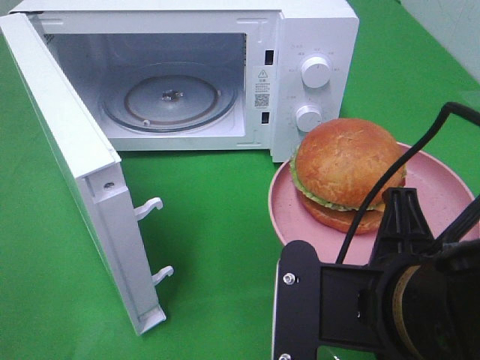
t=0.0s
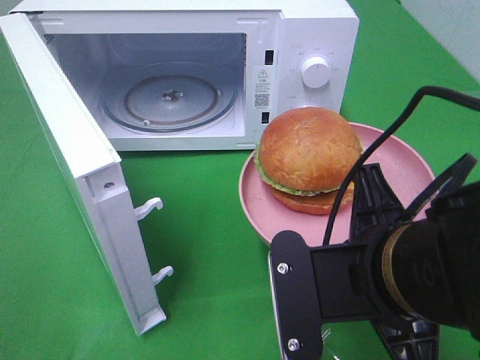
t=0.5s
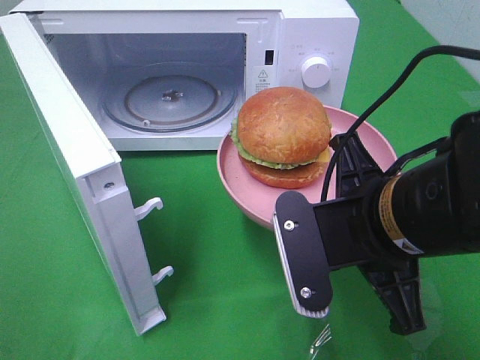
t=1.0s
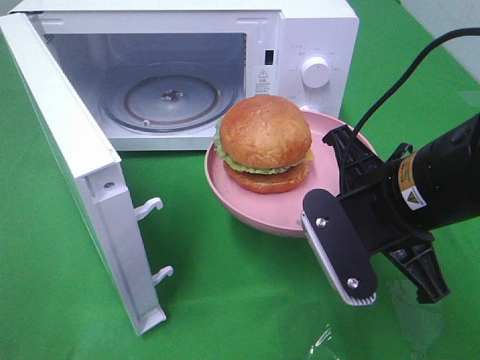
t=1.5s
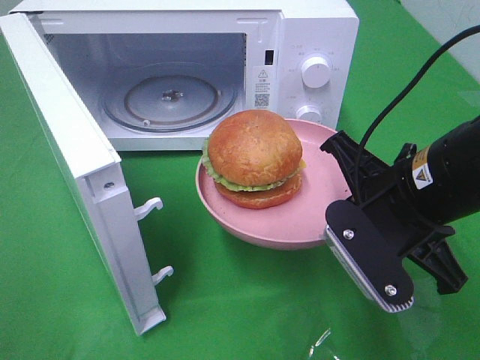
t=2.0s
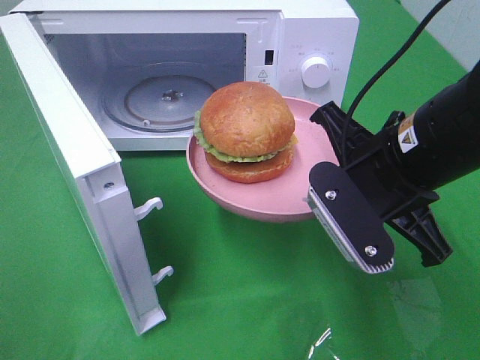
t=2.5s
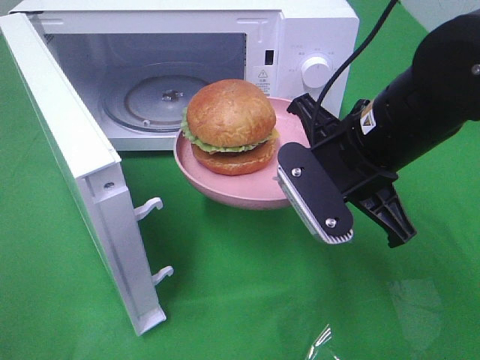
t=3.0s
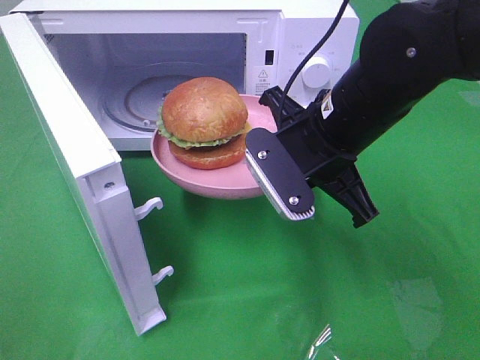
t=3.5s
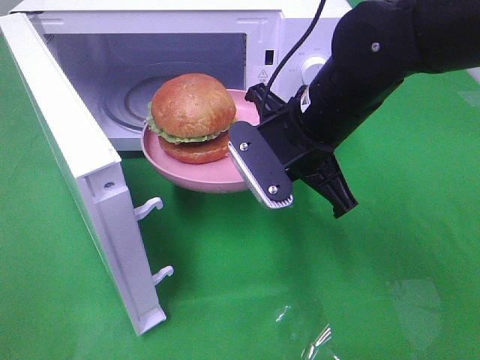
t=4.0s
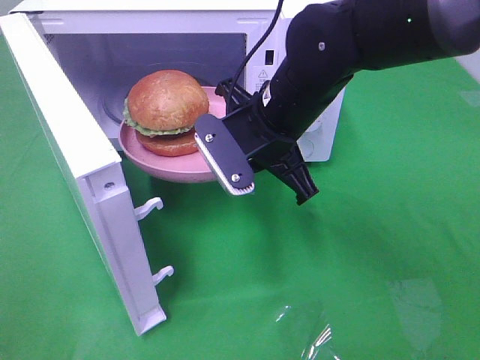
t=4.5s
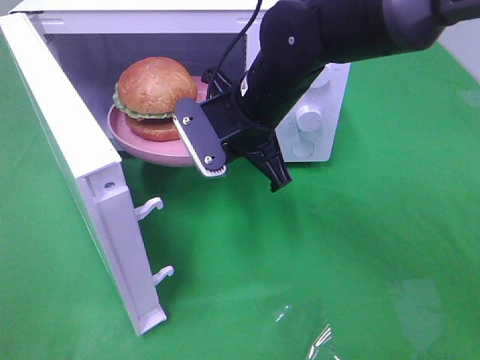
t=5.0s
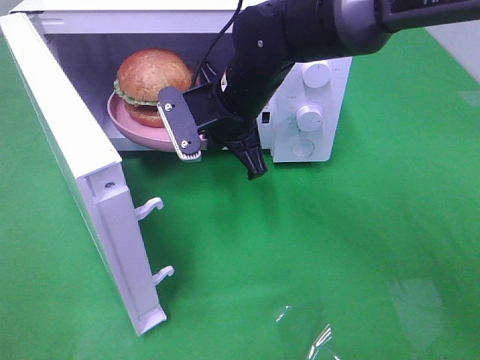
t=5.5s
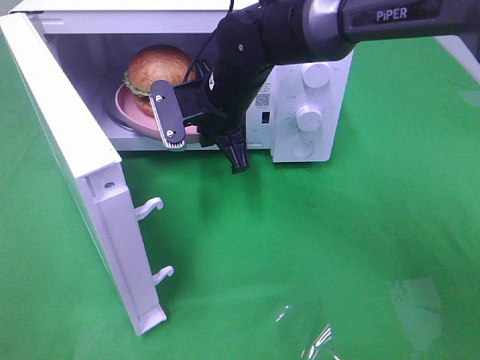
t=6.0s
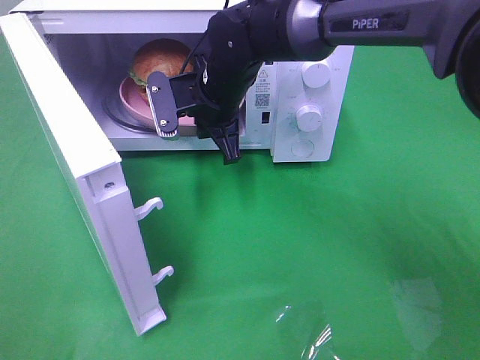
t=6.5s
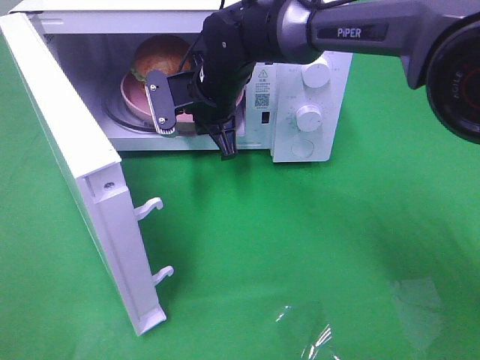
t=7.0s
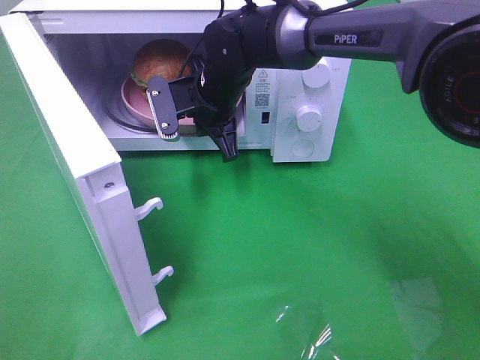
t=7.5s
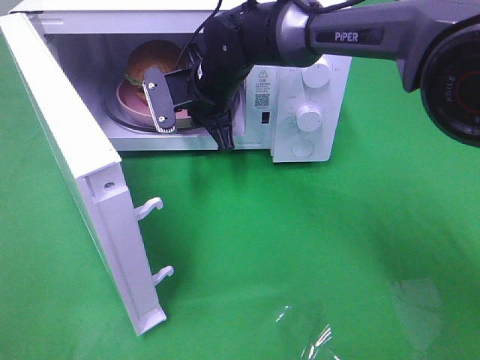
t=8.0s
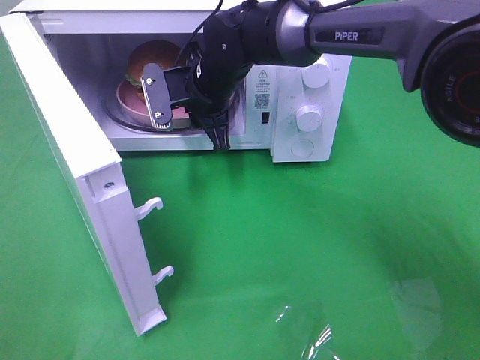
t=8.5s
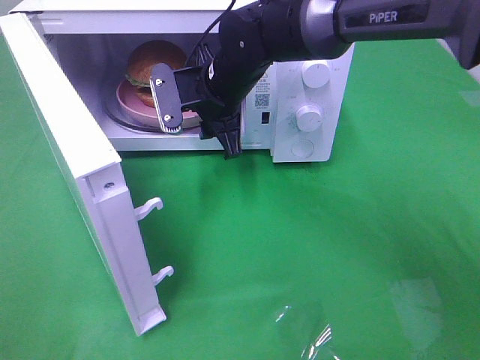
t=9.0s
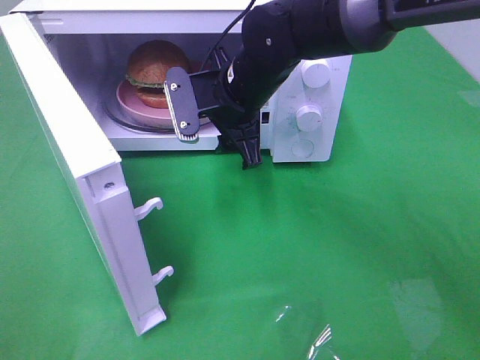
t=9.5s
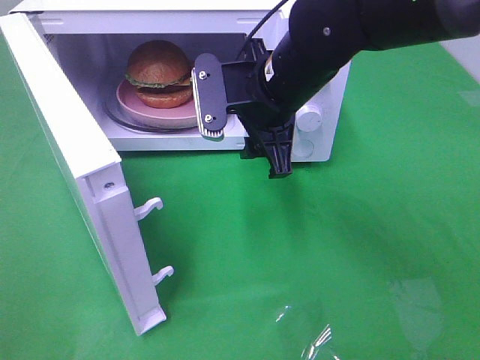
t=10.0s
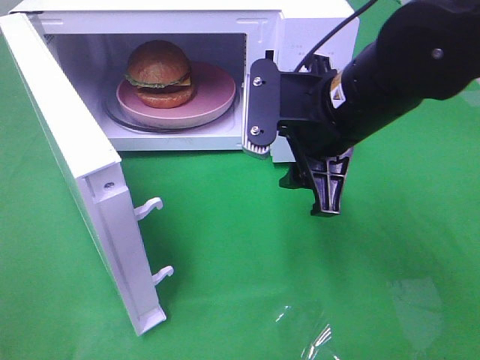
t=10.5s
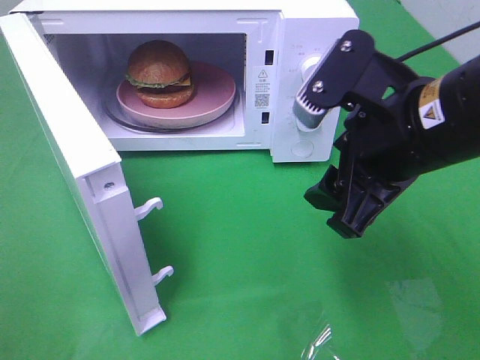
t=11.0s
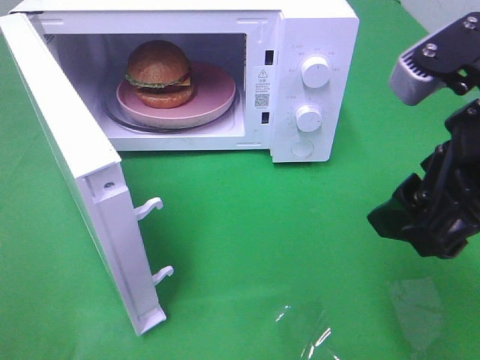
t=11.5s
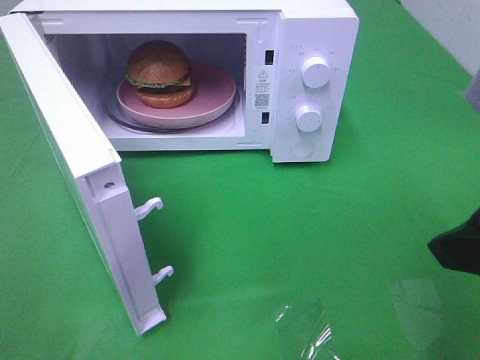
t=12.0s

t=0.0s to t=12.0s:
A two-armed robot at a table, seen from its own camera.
Task of the whole recording: Heat the burger.
Step, t=0.0s to t=9.0s: Right hand: place the plate in the microwave.
t=0.0s to t=2.0s: The right gripper is displaced forward by some 10 cm.
t=2.0s to t=4.0s: The right gripper moves forward and to the left, roughly 10 cm.
t=4.0s to t=6.0s: The right gripper shifts some 15 cm forward and to the left.
t=6.0s to t=8.0s: The grippers stay close to where they were, moving slightly.
t=8.0s to t=10.0s: The right gripper heads backward, to the right and upward, covering approximately 15 cm, and opens.
t=10.0s to t=12.0s: The right gripper heads backward and to the right, covering roughly 25 cm.

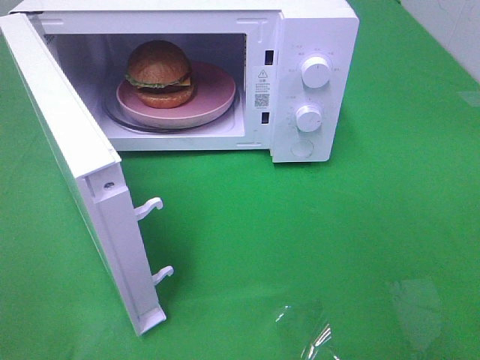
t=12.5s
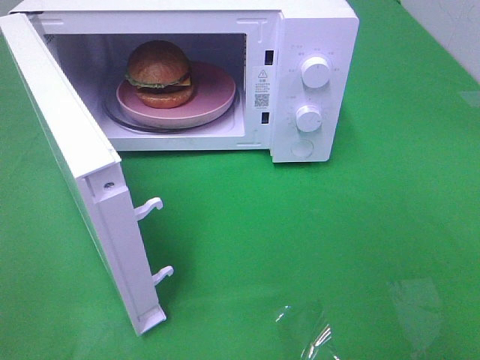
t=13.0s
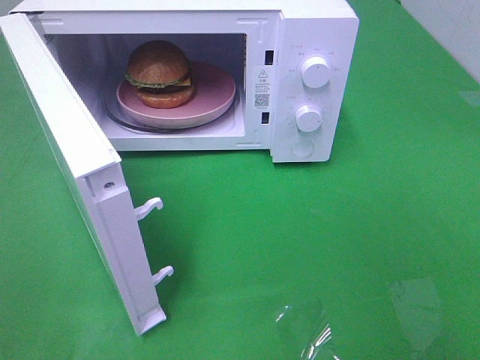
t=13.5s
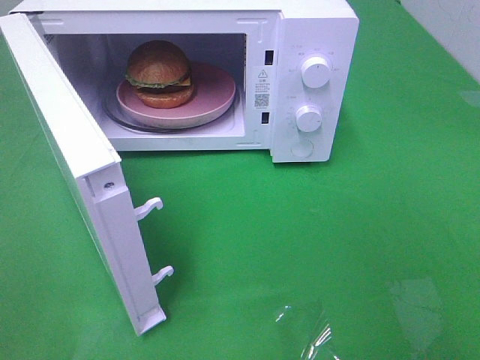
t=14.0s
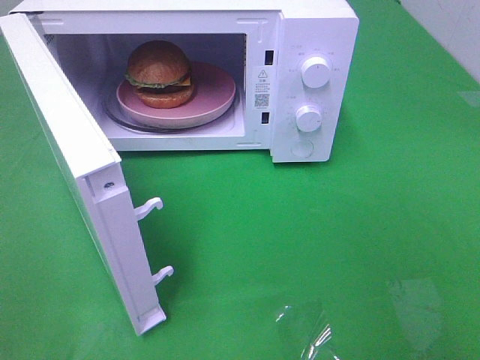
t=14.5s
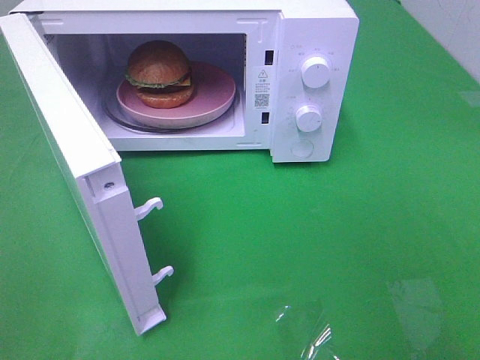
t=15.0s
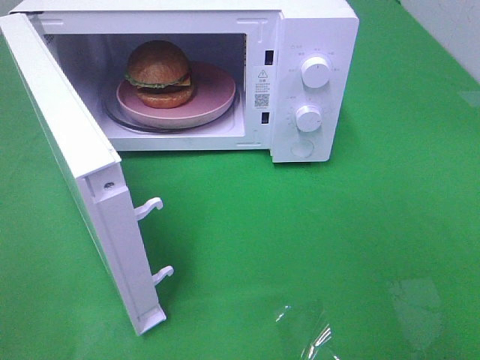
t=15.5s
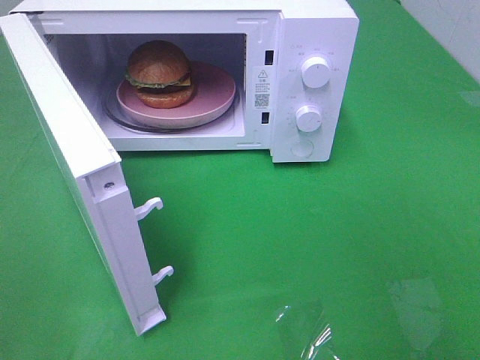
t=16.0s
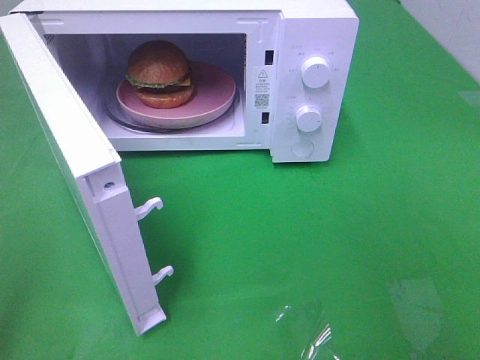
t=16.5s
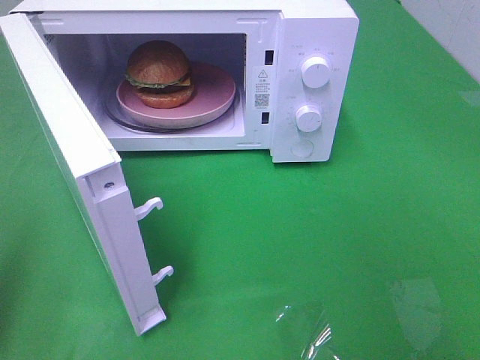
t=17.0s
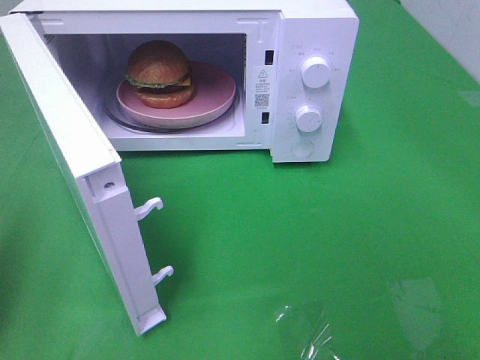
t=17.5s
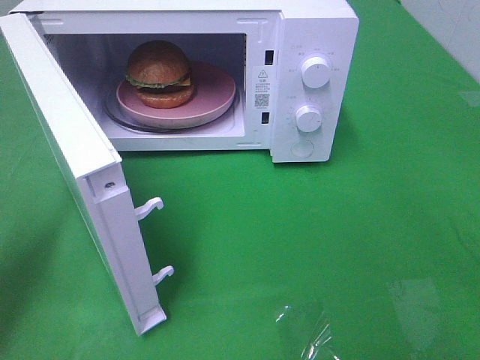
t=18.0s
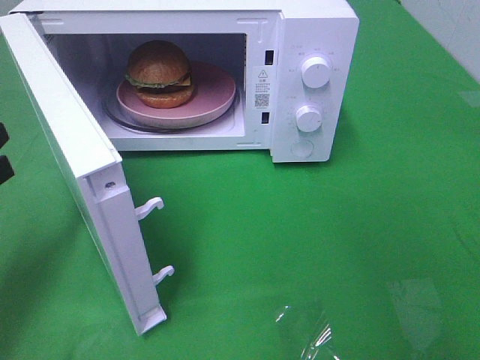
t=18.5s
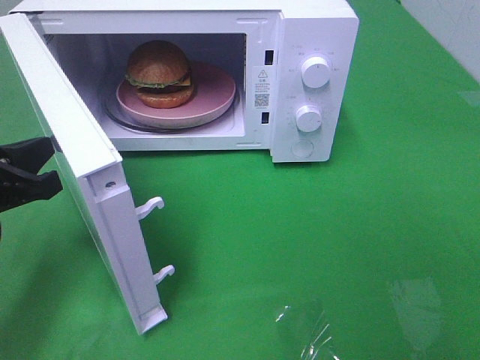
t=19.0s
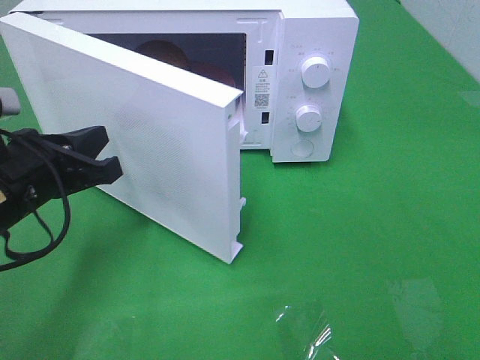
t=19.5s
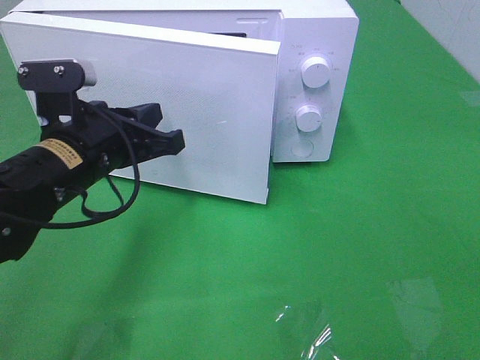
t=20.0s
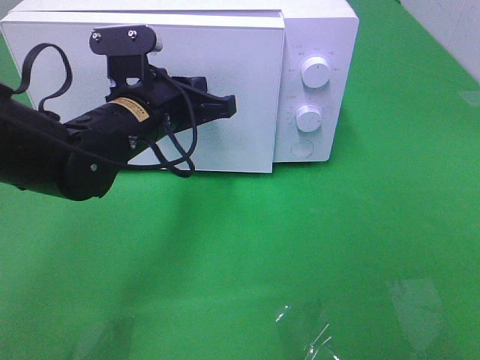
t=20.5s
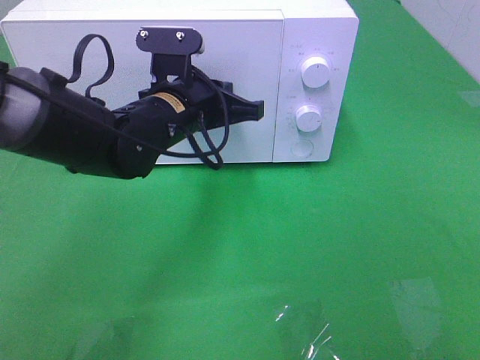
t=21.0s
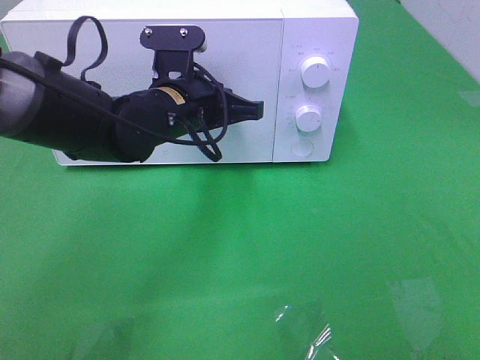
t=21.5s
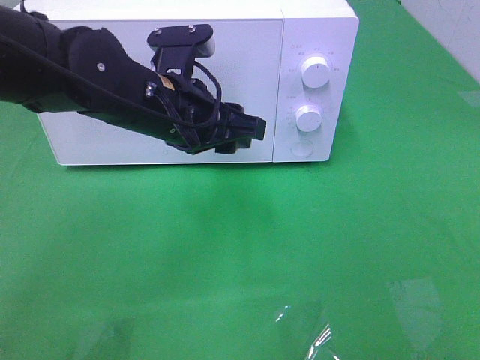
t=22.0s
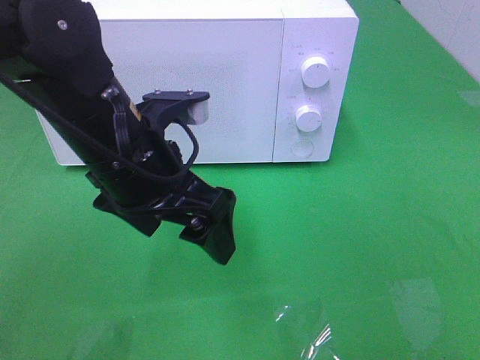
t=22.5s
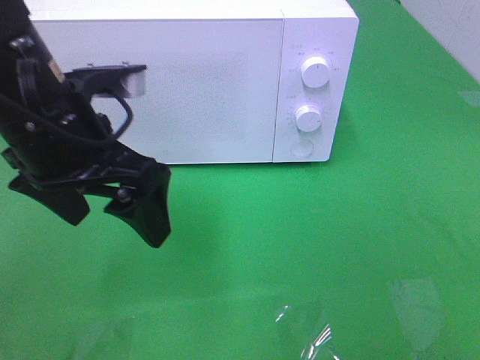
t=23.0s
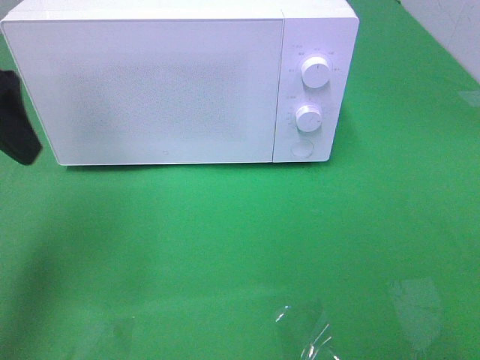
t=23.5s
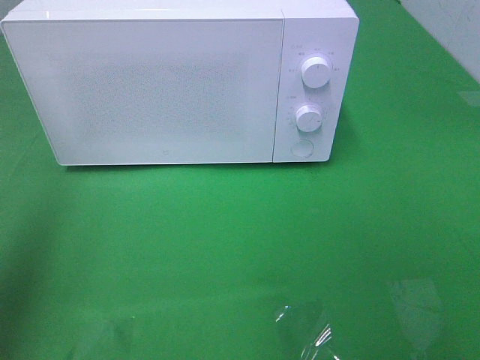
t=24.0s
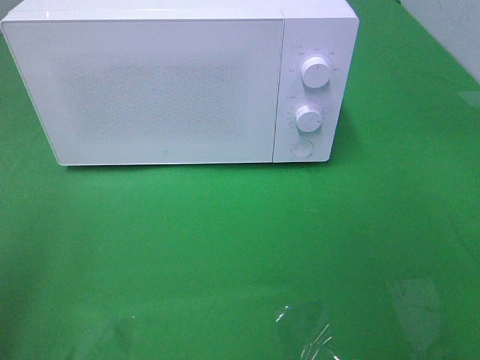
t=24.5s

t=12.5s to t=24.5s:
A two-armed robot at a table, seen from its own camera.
Task of the whole recording: Heat the burger.
Step, t=12.5s to t=22.0s: Left hand: close the microwave door.
t=16.5s to t=18.5s: The left gripper heads forward and downward, covering roughly 20 cm.
t=18.5s to t=20.5s: The left gripper goes approximately 20 cm to the right and forward.
t=20.5s to t=22.5s: The left gripper travels backward by about 5 cm, and opens up.
t=22.5s to t=24.5s: The left gripper moves to the left, backward and upward, roughly 30 cm.

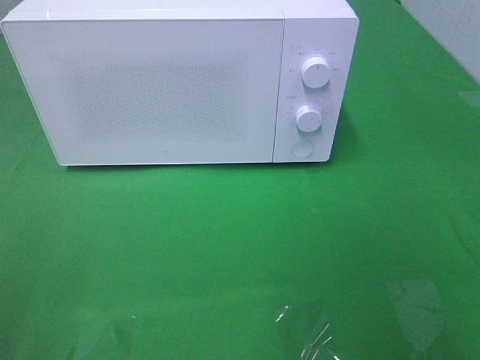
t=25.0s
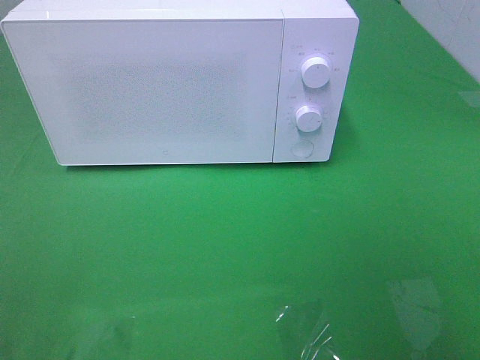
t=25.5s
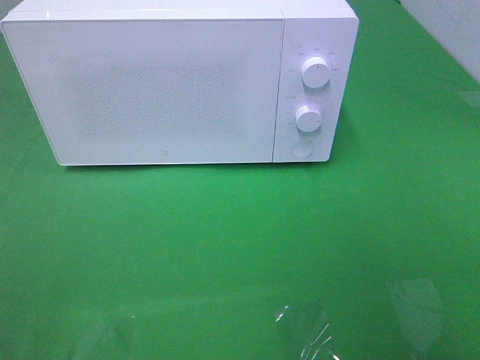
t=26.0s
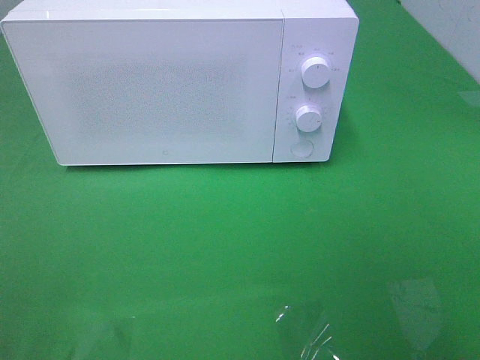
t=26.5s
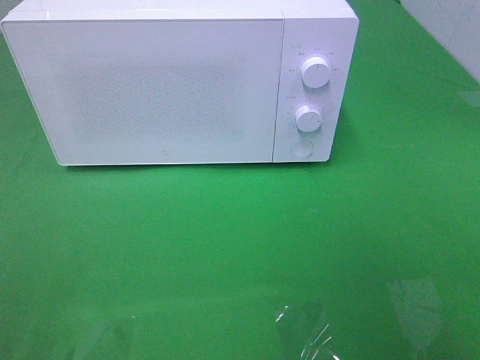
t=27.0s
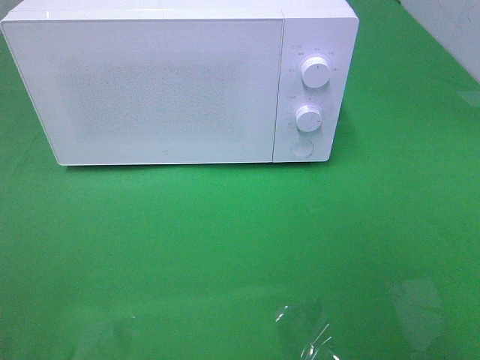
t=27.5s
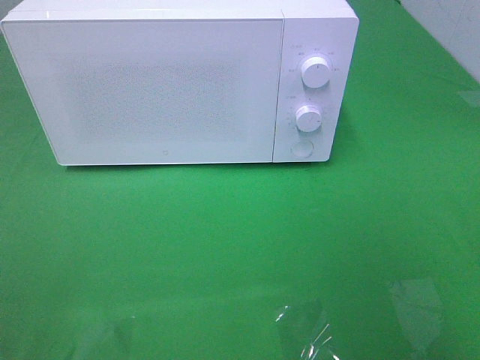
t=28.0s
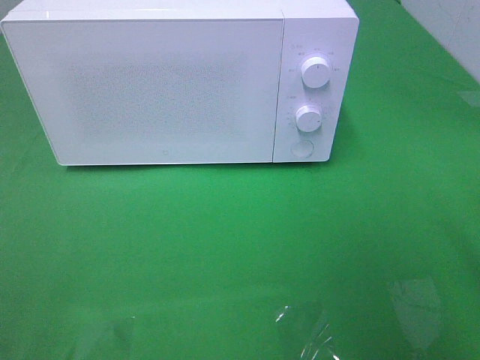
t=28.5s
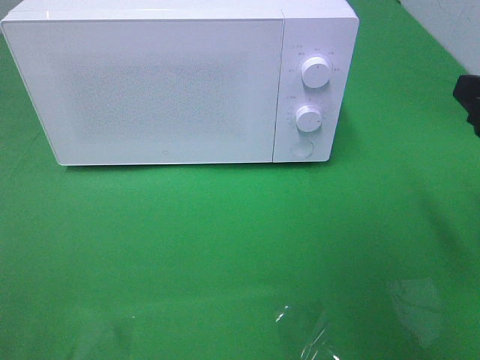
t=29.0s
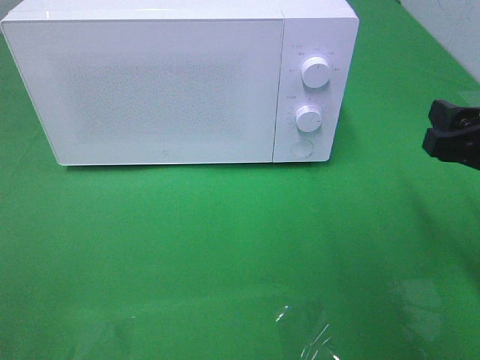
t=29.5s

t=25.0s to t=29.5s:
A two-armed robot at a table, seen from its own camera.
Task of the whole recording: Heat the burger.
t=27.0s to t=29.5s: The right gripper goes some 20 cm forward.
